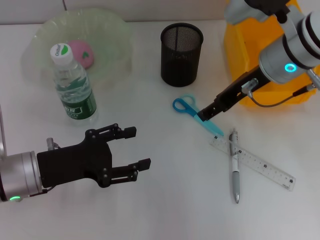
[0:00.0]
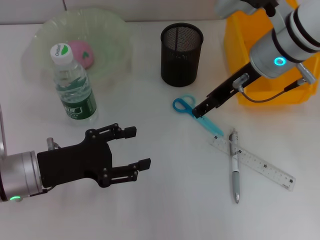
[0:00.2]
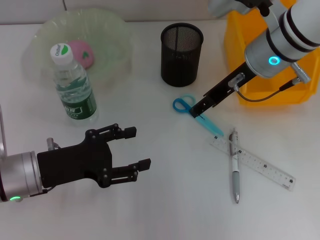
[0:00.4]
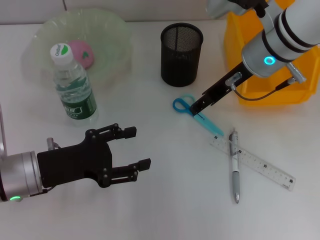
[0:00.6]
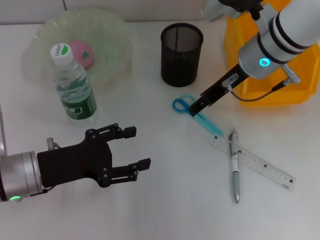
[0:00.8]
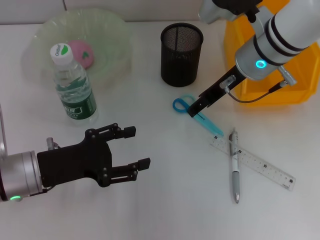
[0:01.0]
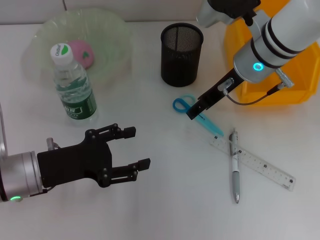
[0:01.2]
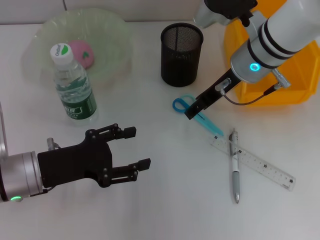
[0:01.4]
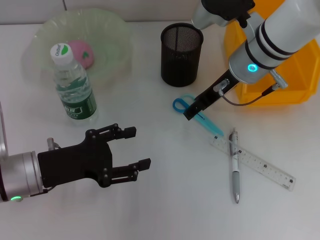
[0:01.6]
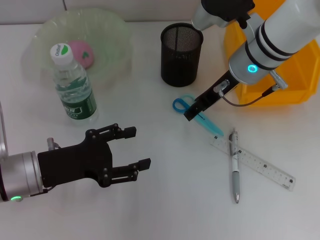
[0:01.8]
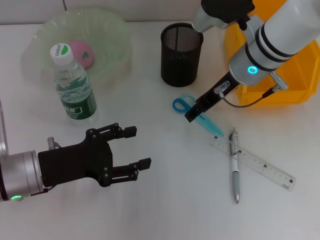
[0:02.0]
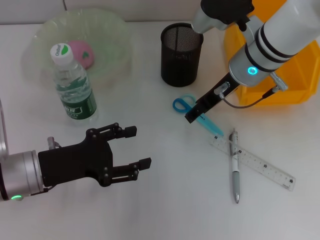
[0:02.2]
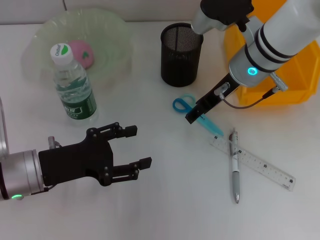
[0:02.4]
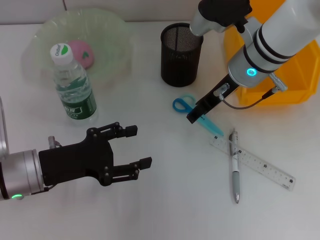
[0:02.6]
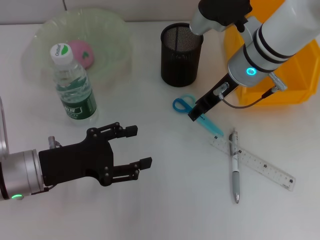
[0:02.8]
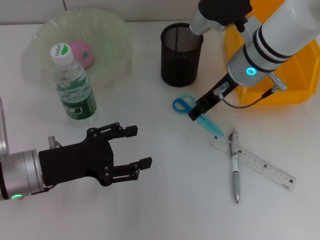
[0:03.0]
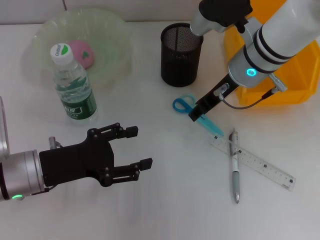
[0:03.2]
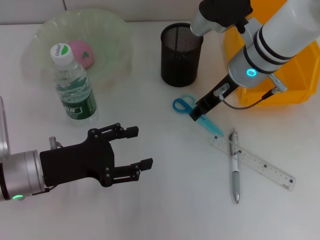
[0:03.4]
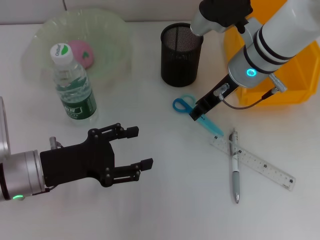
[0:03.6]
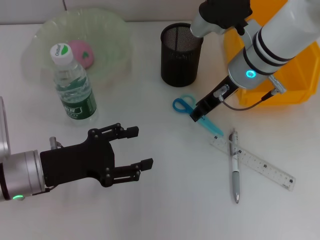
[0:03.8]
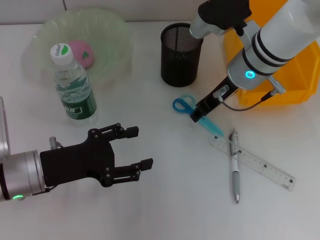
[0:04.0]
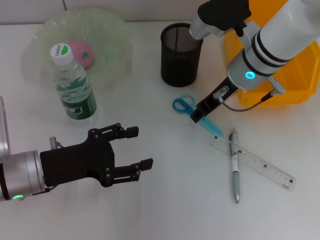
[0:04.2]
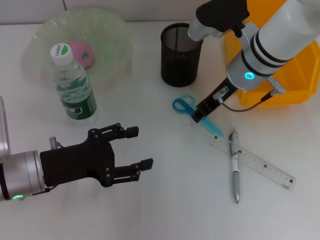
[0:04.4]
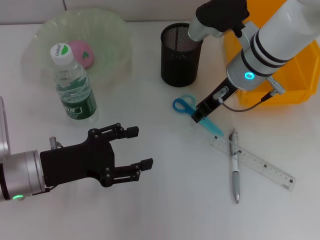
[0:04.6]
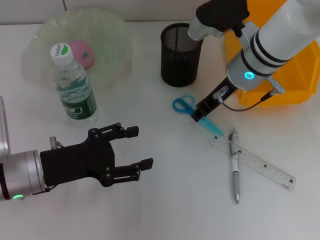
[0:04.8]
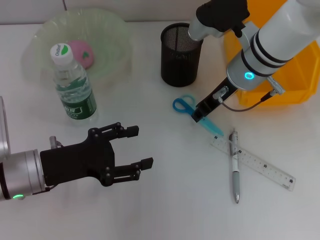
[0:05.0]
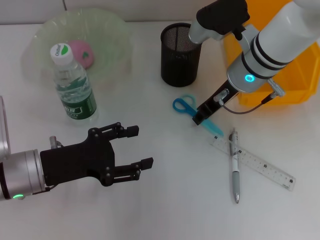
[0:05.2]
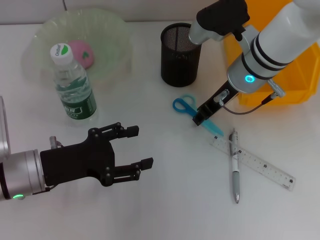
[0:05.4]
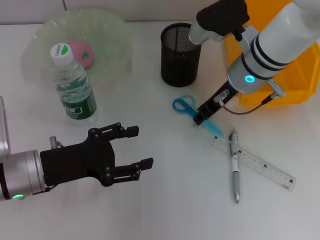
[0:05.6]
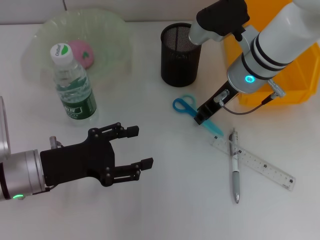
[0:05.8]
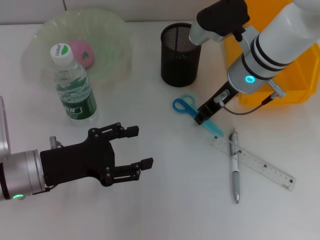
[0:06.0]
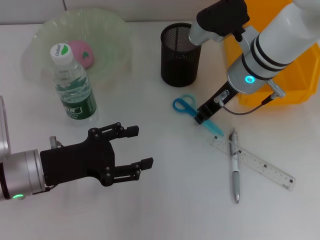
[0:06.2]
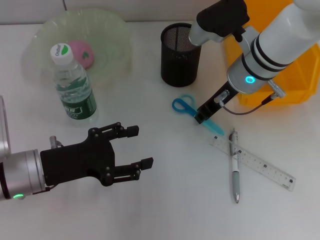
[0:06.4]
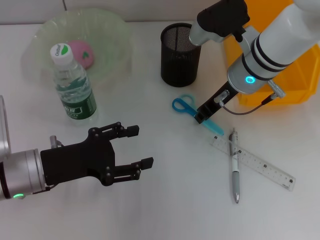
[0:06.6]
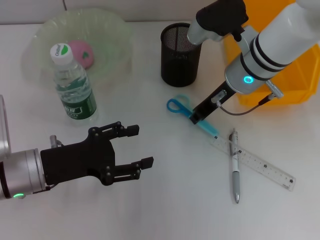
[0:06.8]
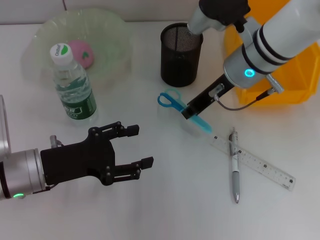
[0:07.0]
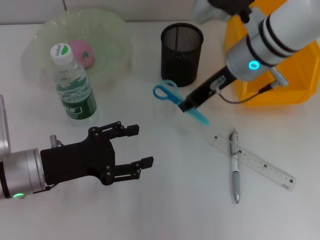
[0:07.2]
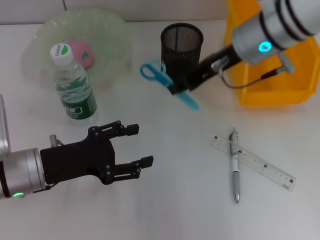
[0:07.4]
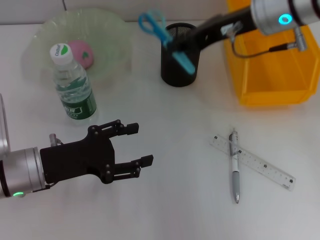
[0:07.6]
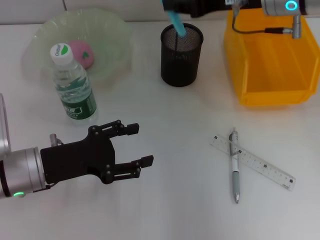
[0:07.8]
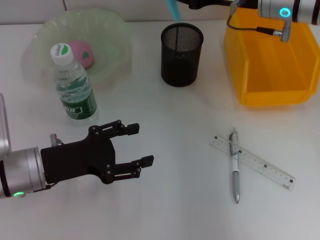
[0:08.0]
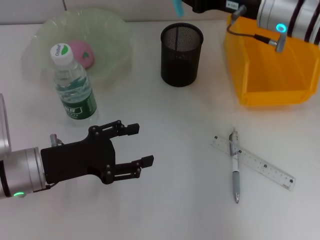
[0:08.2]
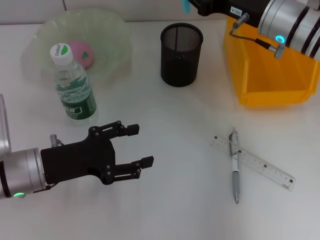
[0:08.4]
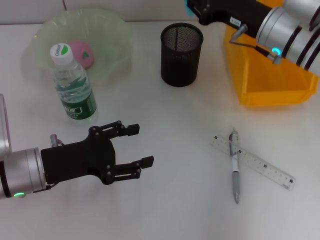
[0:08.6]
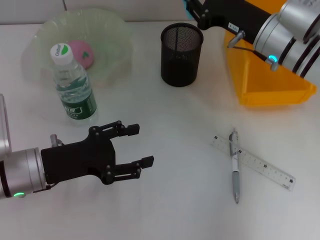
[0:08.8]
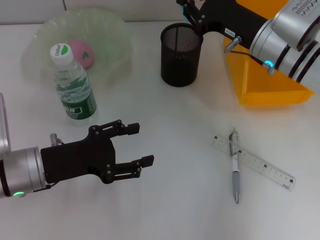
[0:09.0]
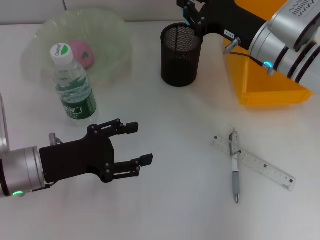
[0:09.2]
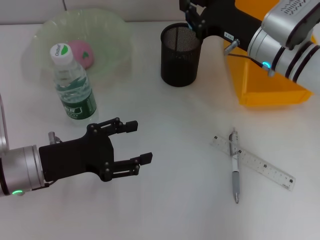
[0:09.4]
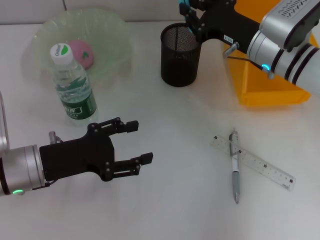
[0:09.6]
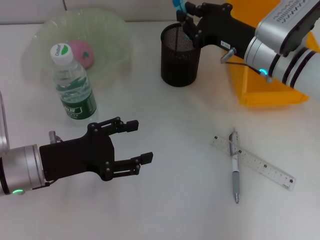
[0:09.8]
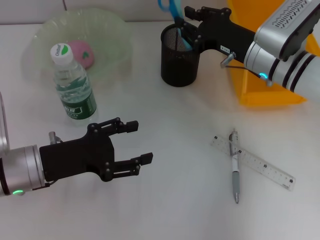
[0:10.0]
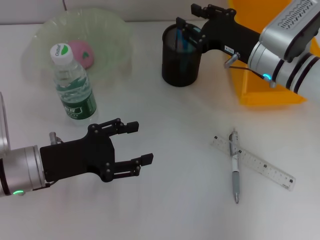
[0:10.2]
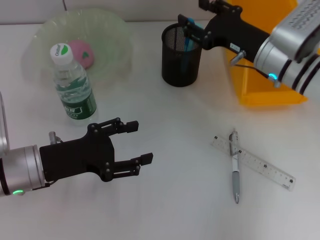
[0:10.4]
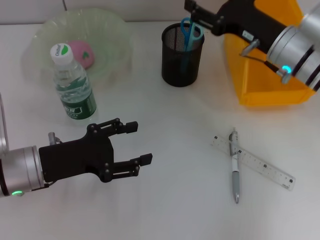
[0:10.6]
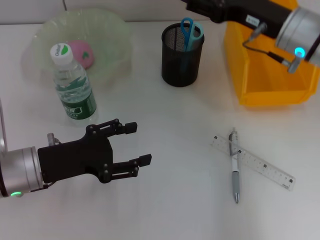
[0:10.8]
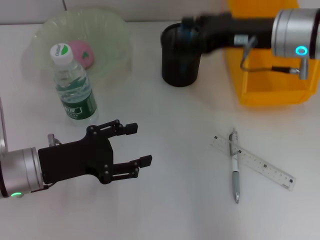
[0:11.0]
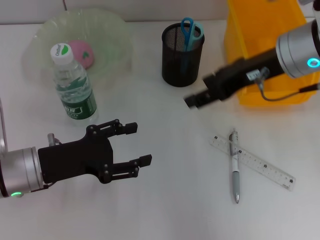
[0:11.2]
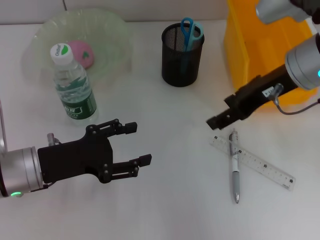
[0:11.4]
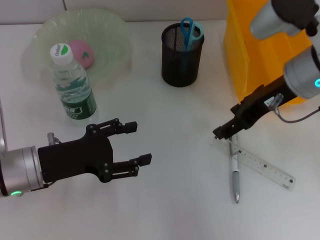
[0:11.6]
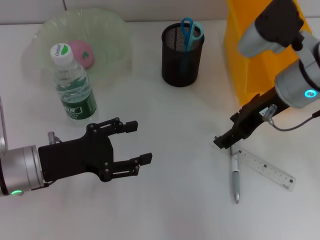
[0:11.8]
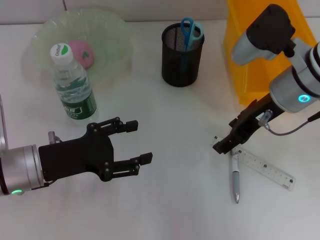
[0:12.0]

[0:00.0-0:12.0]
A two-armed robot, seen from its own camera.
Step, 0:00.0 to 0:06.6: Grab the blue scissors with the right hand.
Step, 0:06.8 to 0:10.4: Place the blue scissors into the pen holder with the right hand.
0:00.0 to 0:01.6: The right gripper shifts by some 5 cm.
0:01.6 to 0:04.4: The two grippers keep their place.
0:04.4 to 0:06.0: Neither gripper changes place.
0:06.0 to 0:07.6: The right gripper travels upward by approximately 10 cm.
0:07.6 to 0:09.0: The right gripper shifts some 10 cm downward.
0:09.0 to 0:10.4: The right gripper opens its fingers.
0:10.4 to 0:12.0: The right gripper opens.

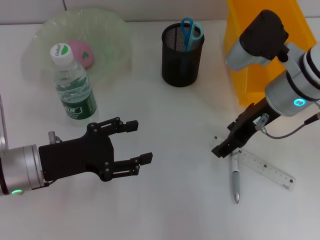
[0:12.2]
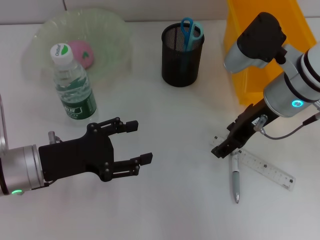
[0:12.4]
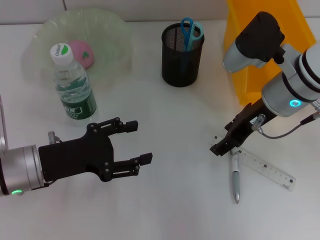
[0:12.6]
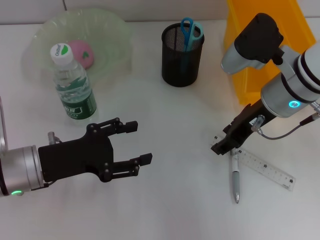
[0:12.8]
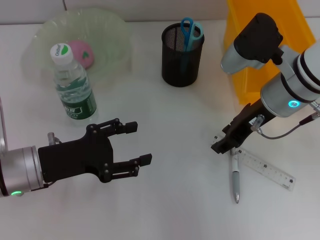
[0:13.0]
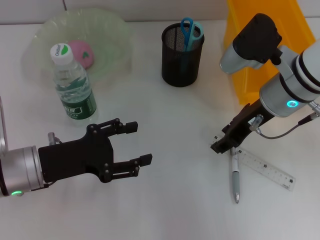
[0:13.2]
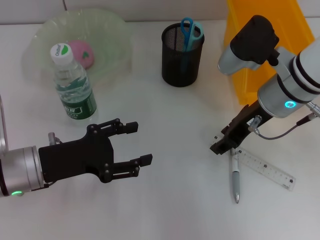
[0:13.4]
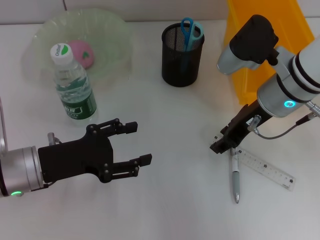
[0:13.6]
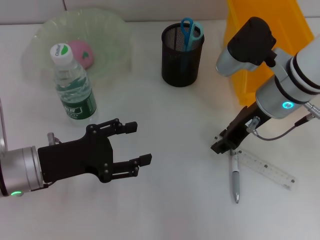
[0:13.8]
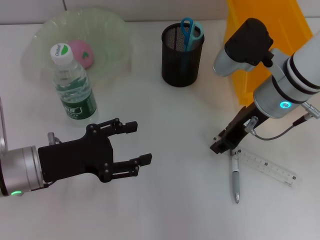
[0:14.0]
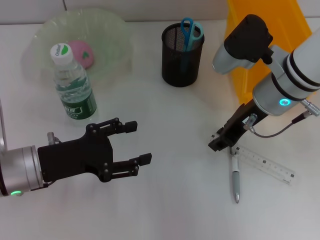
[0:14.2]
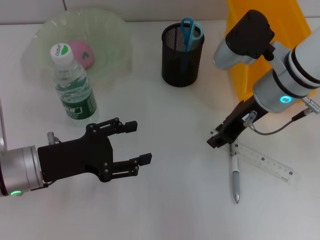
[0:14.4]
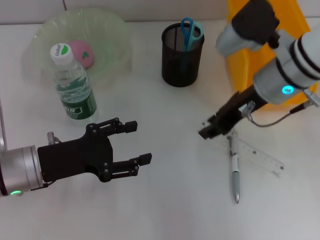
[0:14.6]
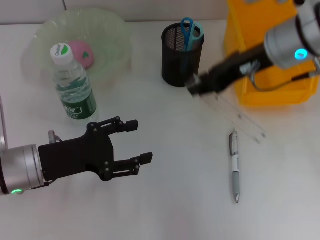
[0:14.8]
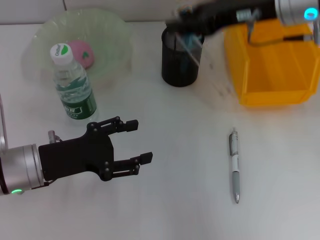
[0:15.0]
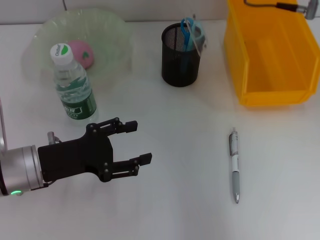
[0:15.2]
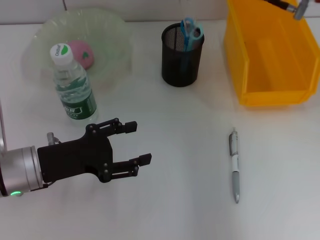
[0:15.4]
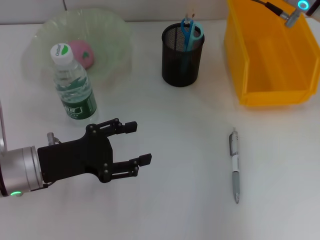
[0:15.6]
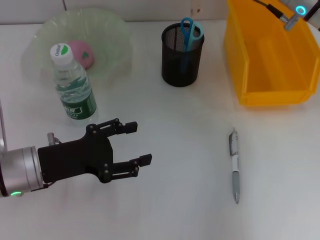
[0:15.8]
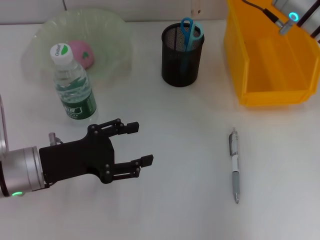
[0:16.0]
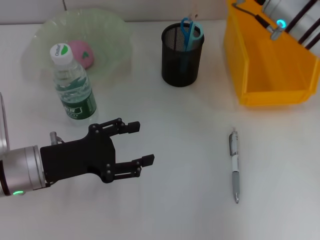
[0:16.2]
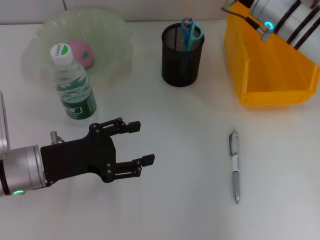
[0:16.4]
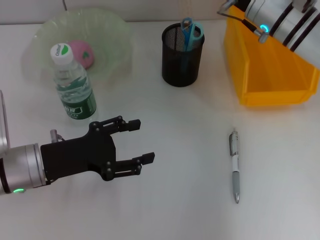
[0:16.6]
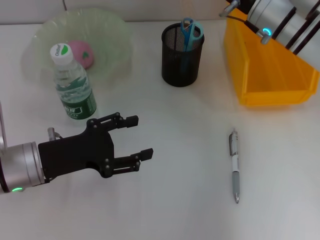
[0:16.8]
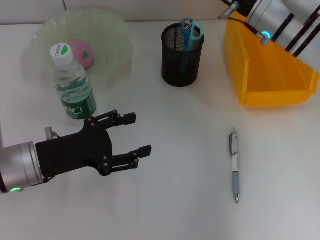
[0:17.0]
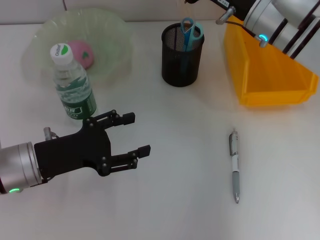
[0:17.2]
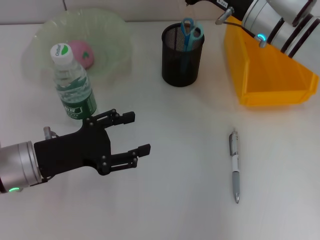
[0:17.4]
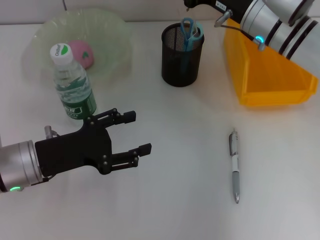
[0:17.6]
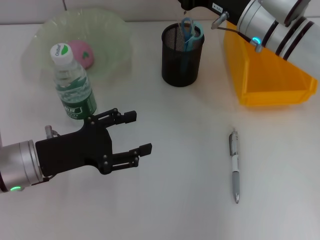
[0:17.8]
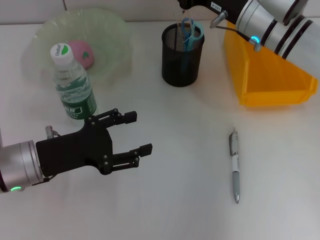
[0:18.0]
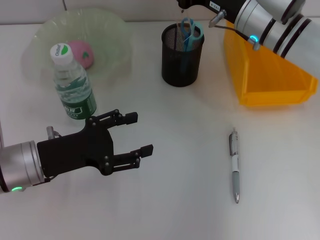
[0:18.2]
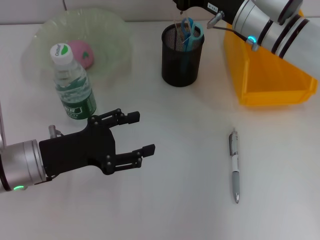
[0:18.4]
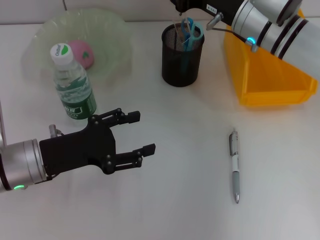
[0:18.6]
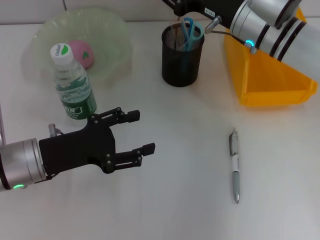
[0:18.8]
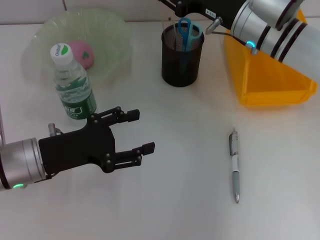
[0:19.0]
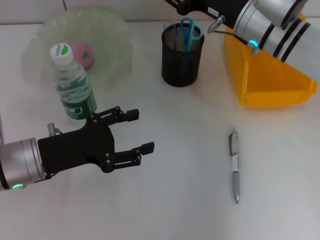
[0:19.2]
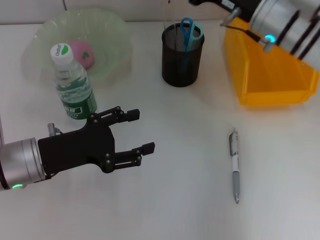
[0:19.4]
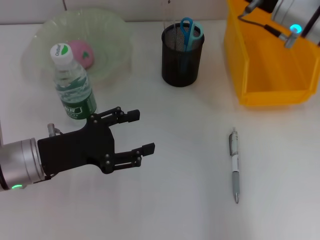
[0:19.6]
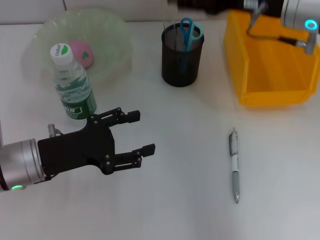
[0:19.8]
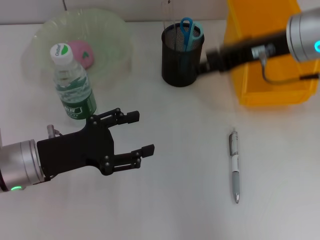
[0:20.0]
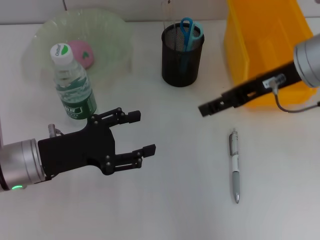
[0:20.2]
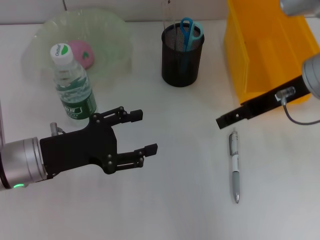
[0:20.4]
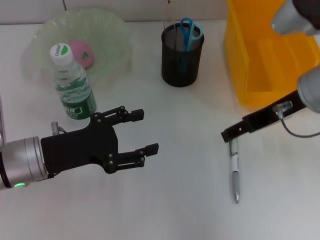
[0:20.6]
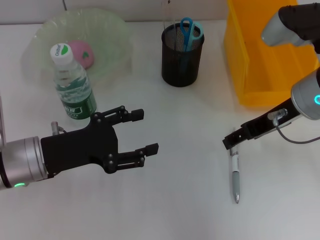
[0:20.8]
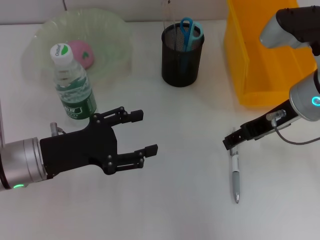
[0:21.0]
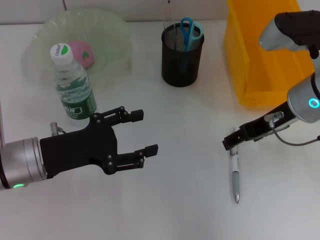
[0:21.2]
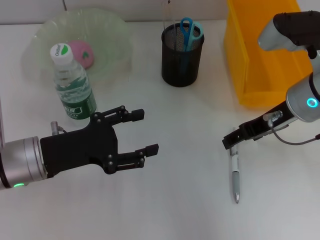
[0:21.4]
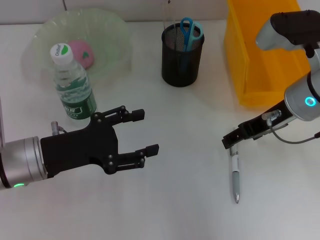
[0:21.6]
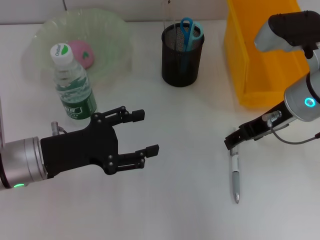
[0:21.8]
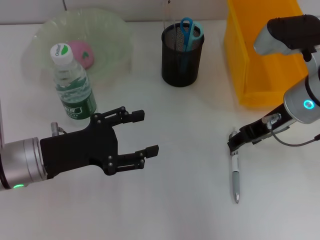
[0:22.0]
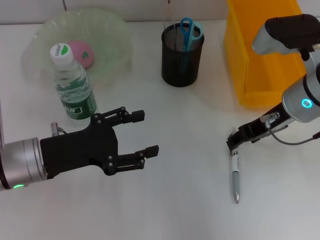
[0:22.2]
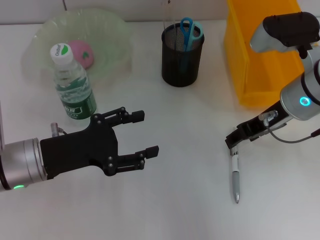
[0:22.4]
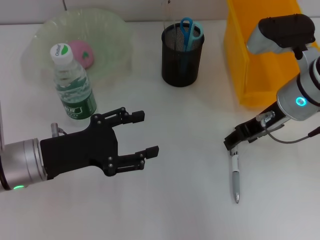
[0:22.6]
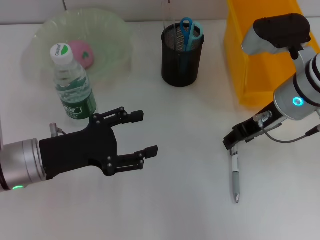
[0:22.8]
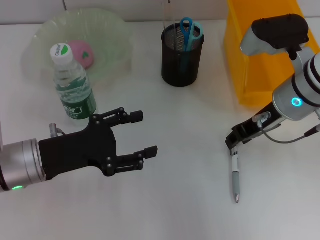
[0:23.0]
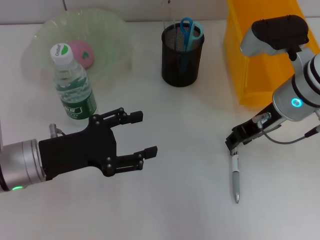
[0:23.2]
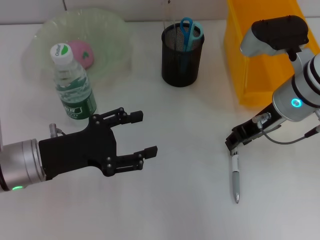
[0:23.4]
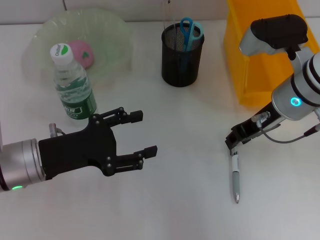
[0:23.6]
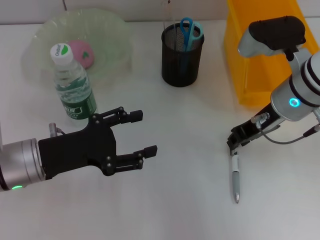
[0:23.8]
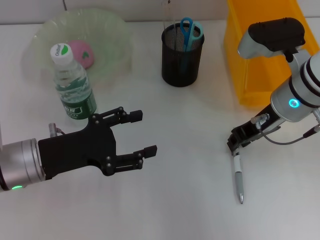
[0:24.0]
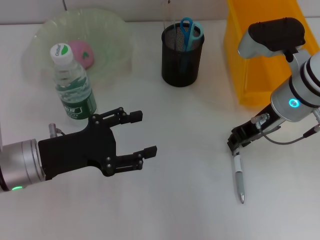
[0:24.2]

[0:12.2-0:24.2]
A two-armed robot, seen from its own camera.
Step, 0:12.2 to 0:14.2: Grab the ruler with the right hand.
Step, 0:14.4 to 0:19.0: Place the ruler into the pen holder with the right hand.
0:12.2 to 0:13.8: The right gripper closes up.
0:13.8 to 0:15.2: The right gripper heads upward, covering approximately 10 cm.
0:15.2 to 0:16.6: The right gripper goes roughly 10 cm downward.
0:16.6 to 0:18.2: The grippers make only small movements.
0:18.2 to 0:19.8: The right gripper moves upward, approximately 5 cm, and opens.
0:19.8 to 0:21.2: The right gripper is displaced downward by some 5 cm.
0:21.2 to 0:22.6: There are only small adjustments of the grippers.
0:22.6 to 0:24.2: The right gripper closes.
